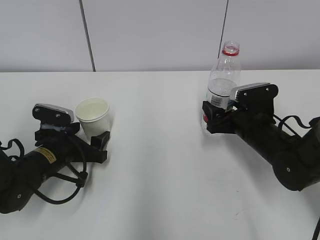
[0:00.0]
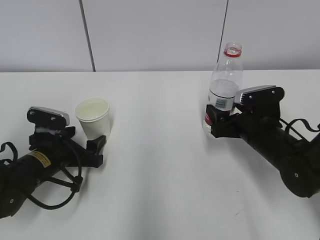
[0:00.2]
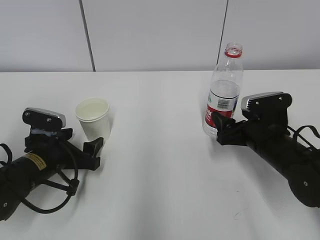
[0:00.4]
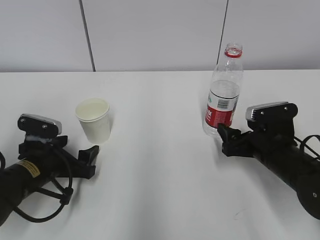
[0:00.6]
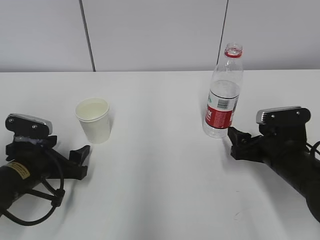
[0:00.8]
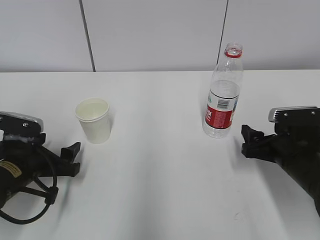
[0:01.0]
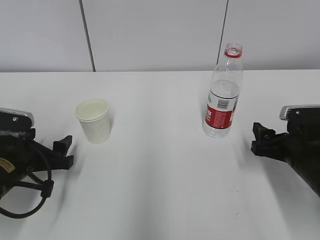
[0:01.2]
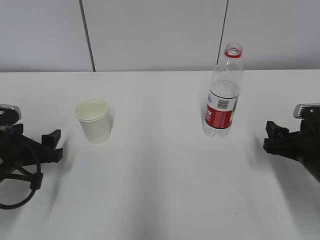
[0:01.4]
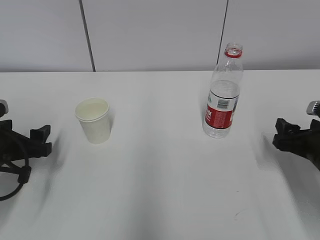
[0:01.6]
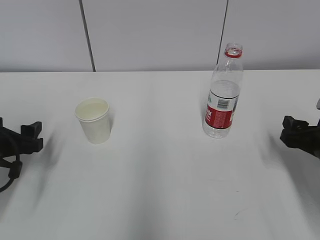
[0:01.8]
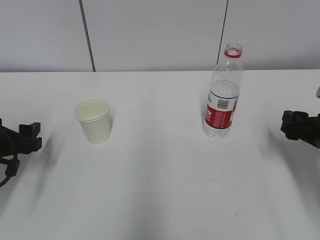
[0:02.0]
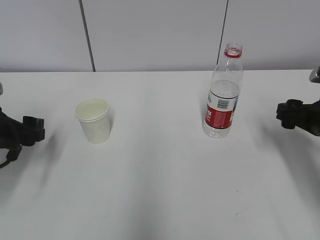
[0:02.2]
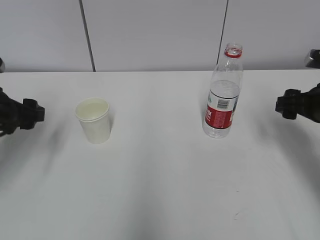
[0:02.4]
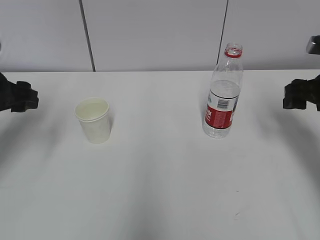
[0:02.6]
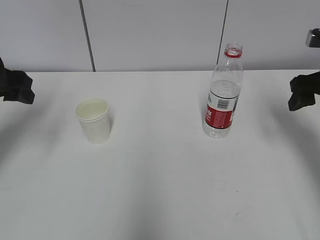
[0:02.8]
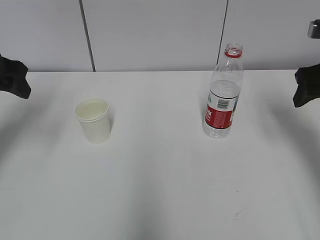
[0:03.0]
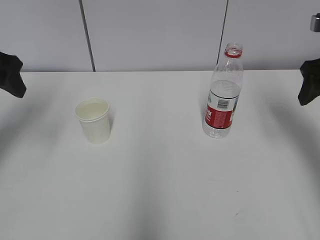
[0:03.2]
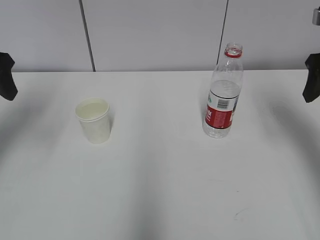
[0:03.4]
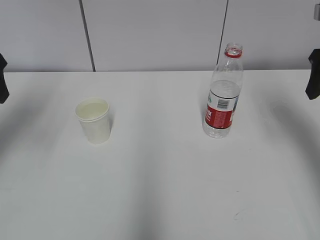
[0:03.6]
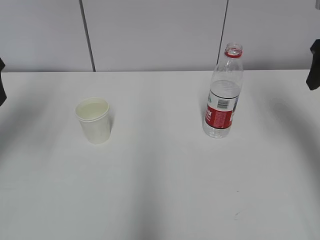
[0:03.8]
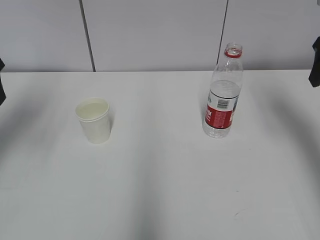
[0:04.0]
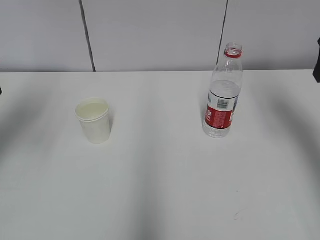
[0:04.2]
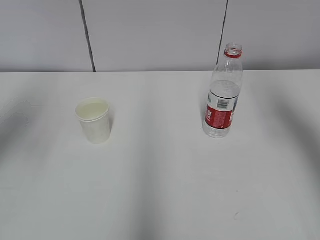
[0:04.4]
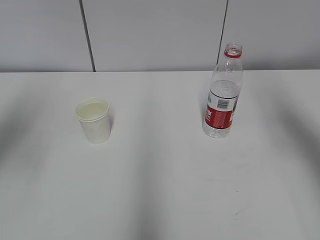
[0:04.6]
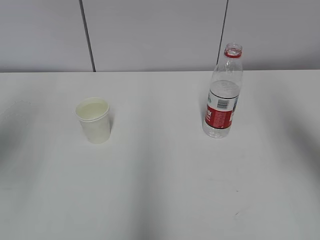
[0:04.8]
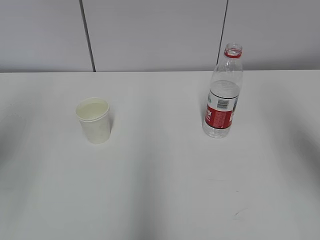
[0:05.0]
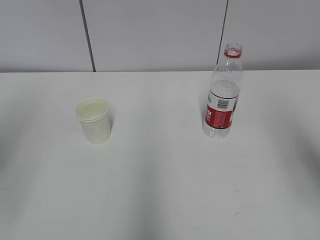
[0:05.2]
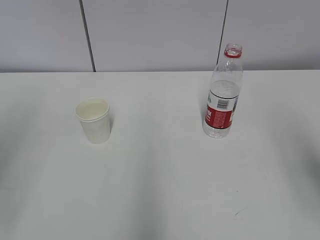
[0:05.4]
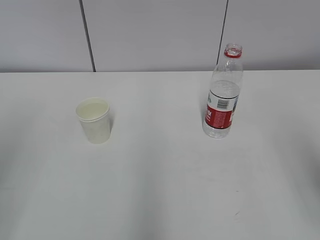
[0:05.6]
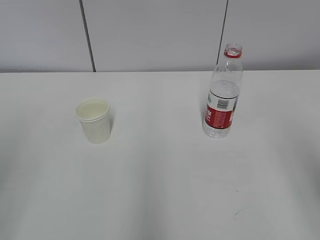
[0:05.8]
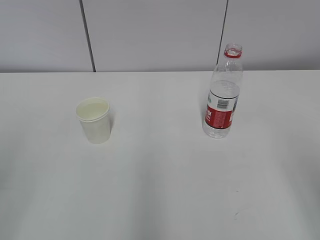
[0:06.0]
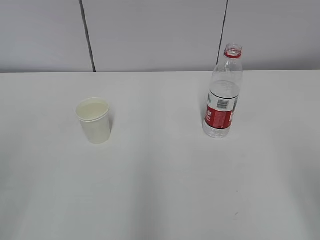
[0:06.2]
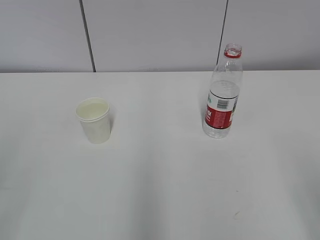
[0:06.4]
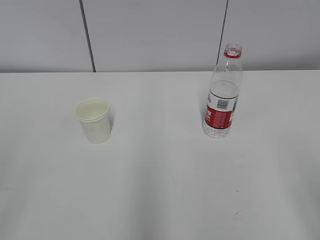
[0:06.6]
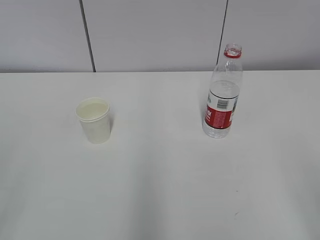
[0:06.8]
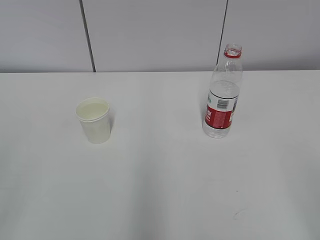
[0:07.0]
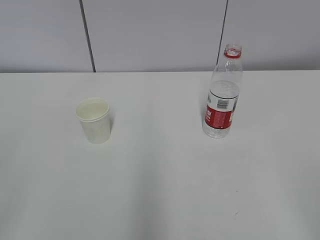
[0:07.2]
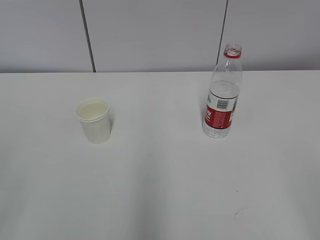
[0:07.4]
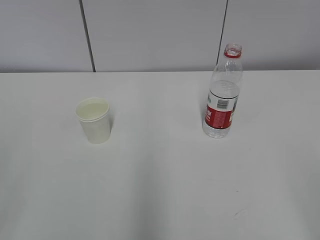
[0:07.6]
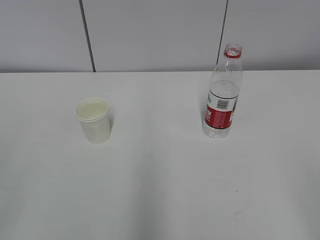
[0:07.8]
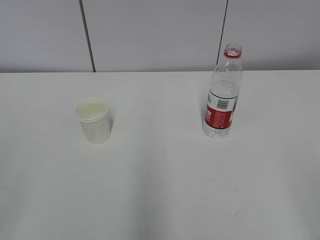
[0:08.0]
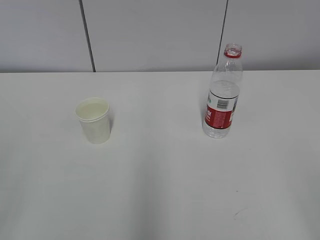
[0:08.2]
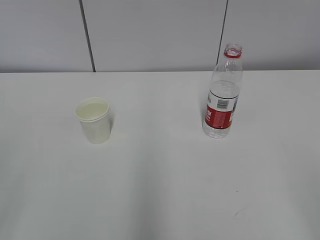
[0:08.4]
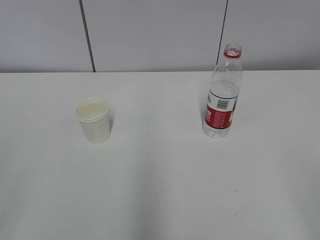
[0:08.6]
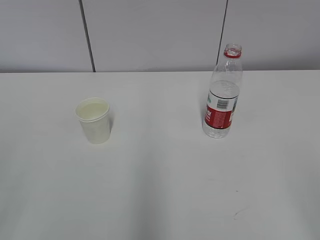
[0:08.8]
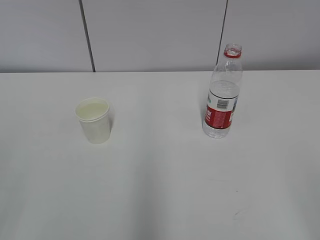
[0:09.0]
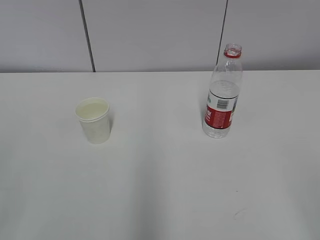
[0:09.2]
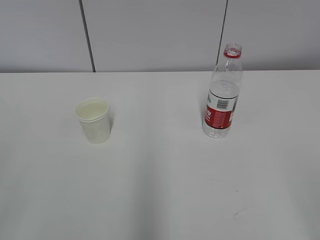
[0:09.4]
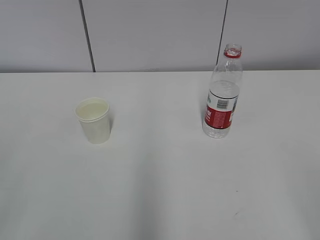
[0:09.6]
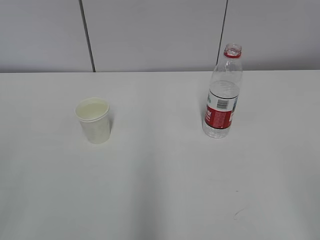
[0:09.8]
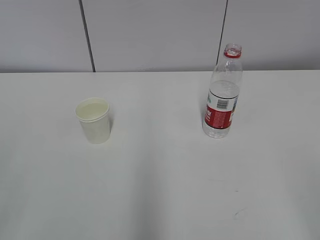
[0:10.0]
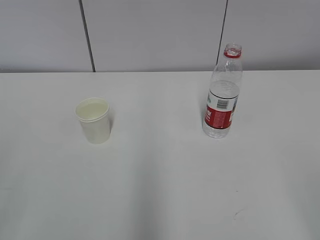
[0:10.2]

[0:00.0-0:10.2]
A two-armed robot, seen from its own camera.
0:00.0 to 0:01.4: The right gripper heads backward and to the right, covering some 10 cm. Meanwhile the left gripper travels to the left by roughly 5 cm.
0:01.4 to 0:03.0: The right gripper is displaced upward and forward by roughly 15 cm, while the left gripper goes roughly 20 cm upward.
0:03.0 to 0:04.4: The left gripper heads upward, covering roughly 5 cm; the right gripper travels upward by roughly 10 cm.
0:04.4 to 0:05.8: Both grippers move backward, about 20 cm.
0:07.2 to 0:10.2: Both grippers stay put.

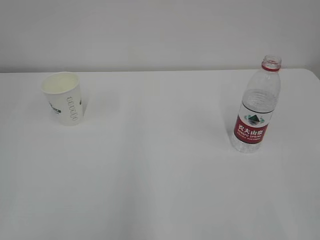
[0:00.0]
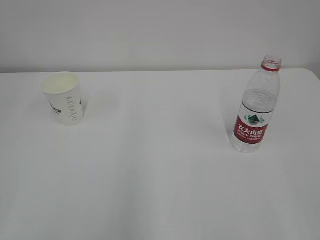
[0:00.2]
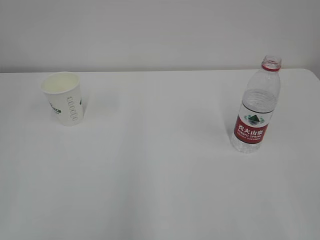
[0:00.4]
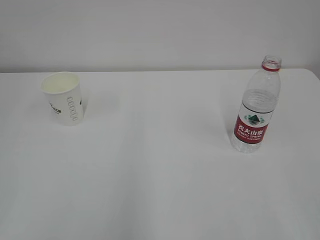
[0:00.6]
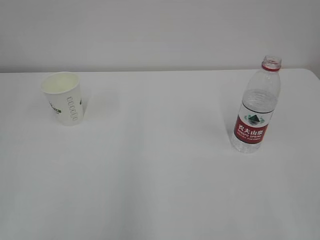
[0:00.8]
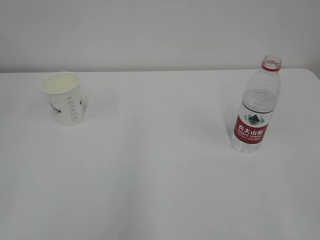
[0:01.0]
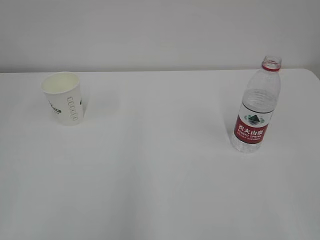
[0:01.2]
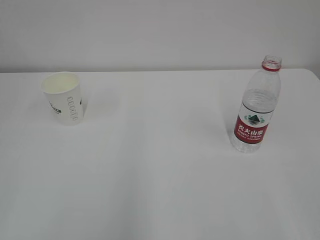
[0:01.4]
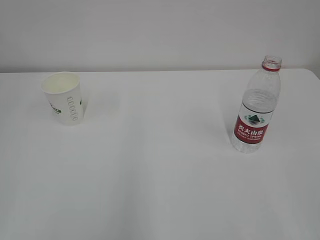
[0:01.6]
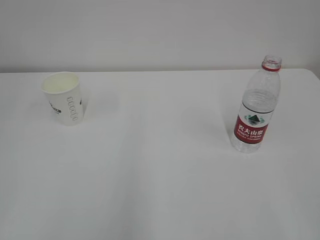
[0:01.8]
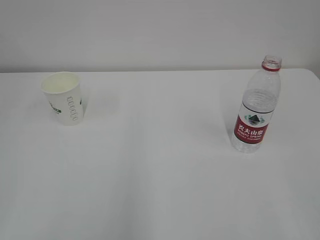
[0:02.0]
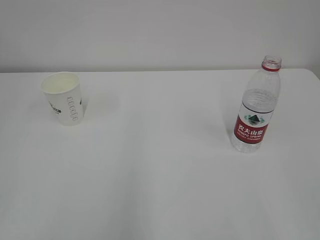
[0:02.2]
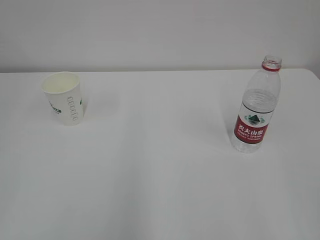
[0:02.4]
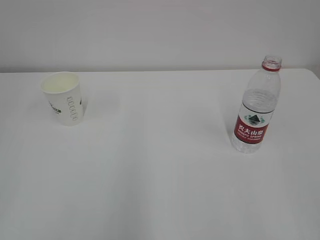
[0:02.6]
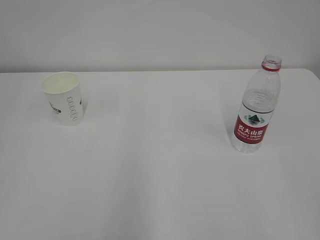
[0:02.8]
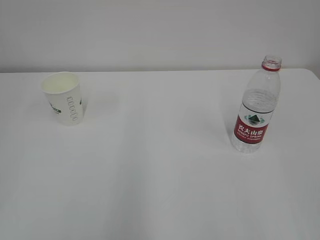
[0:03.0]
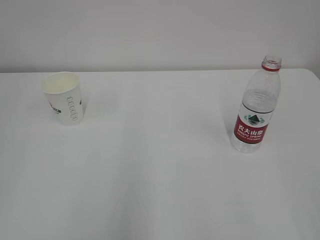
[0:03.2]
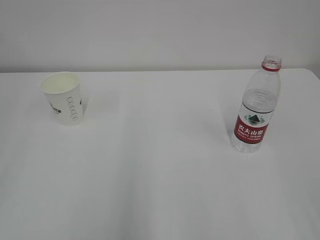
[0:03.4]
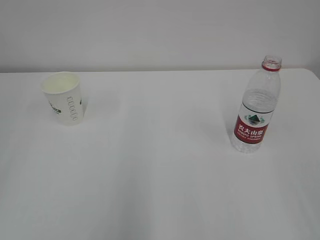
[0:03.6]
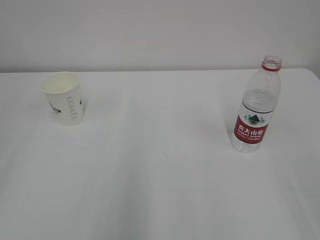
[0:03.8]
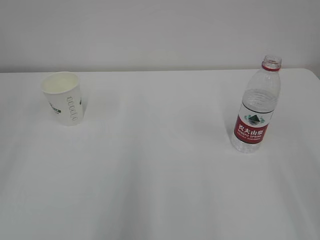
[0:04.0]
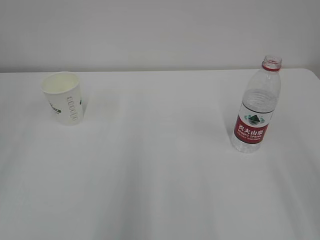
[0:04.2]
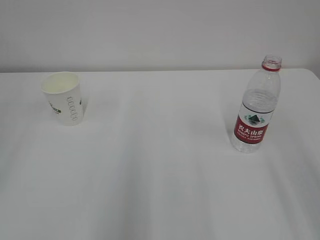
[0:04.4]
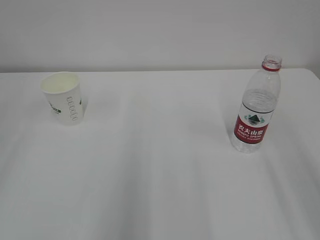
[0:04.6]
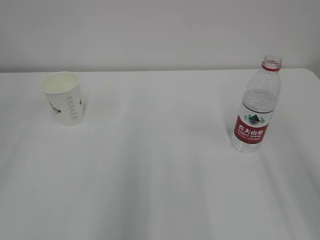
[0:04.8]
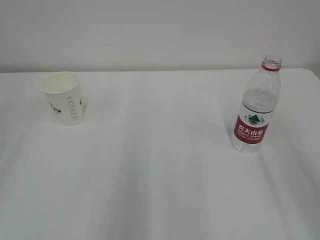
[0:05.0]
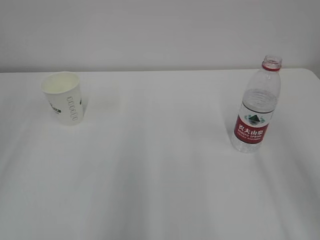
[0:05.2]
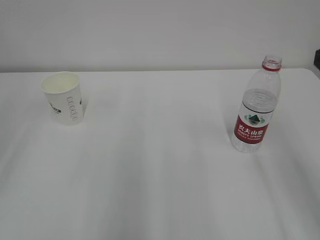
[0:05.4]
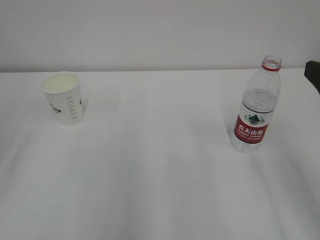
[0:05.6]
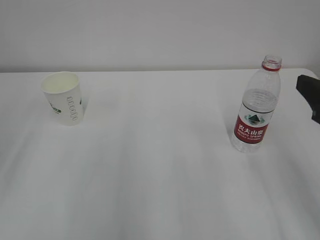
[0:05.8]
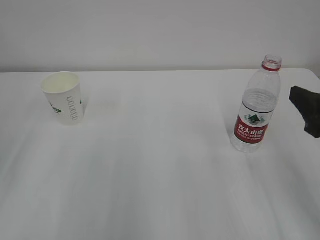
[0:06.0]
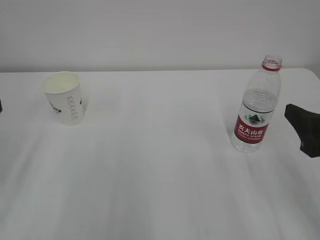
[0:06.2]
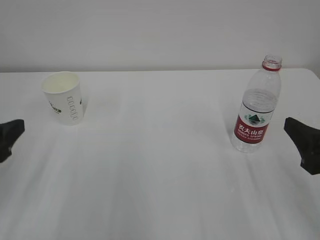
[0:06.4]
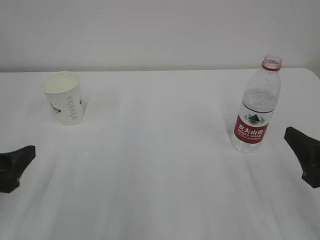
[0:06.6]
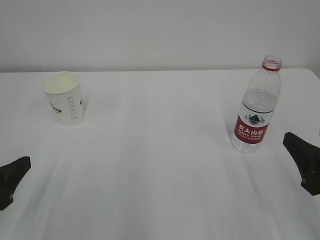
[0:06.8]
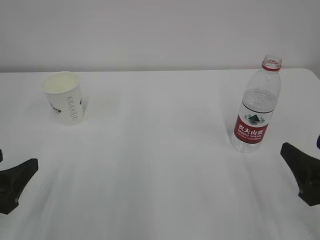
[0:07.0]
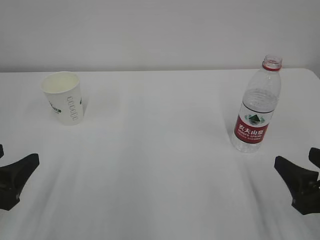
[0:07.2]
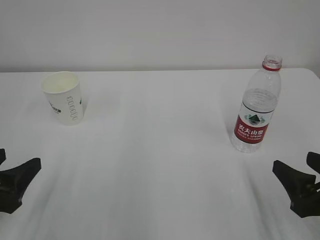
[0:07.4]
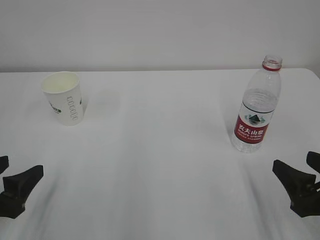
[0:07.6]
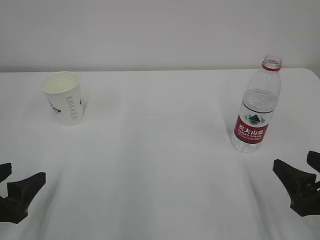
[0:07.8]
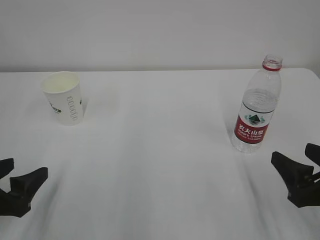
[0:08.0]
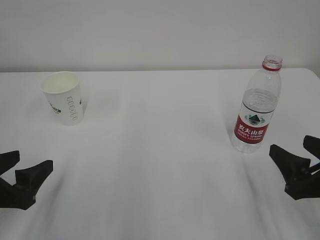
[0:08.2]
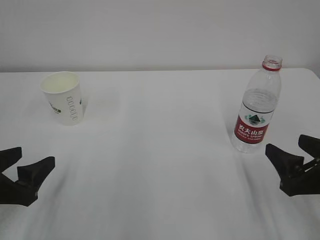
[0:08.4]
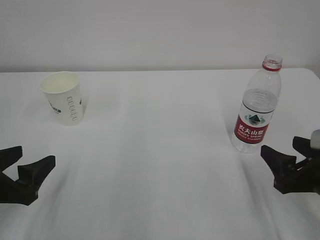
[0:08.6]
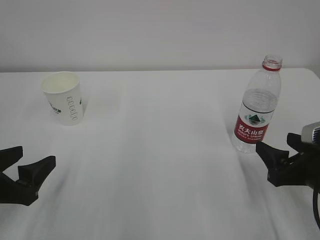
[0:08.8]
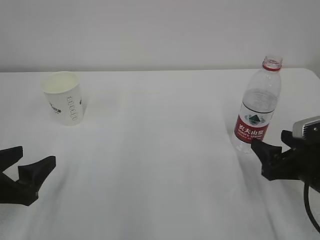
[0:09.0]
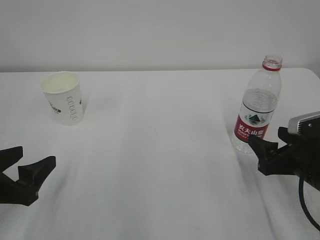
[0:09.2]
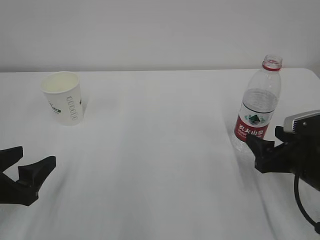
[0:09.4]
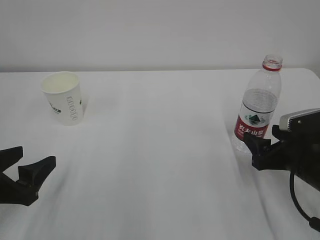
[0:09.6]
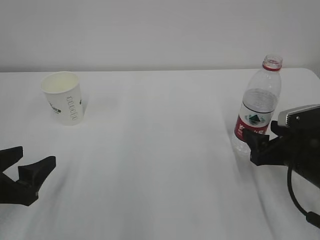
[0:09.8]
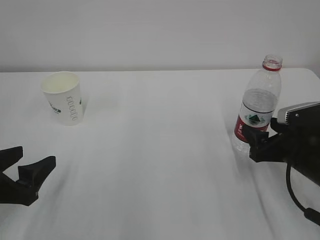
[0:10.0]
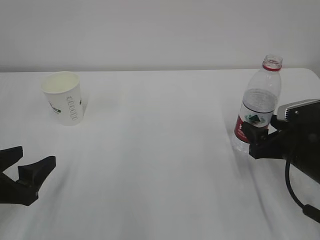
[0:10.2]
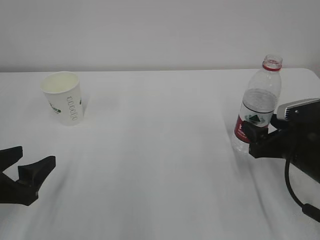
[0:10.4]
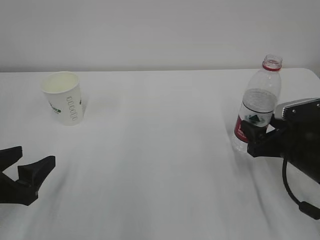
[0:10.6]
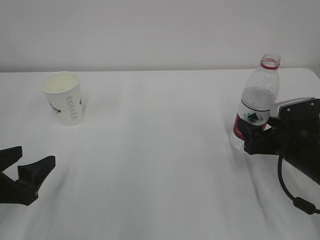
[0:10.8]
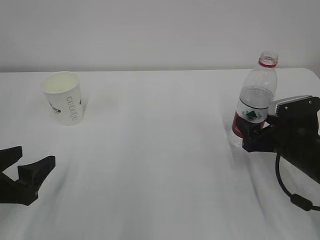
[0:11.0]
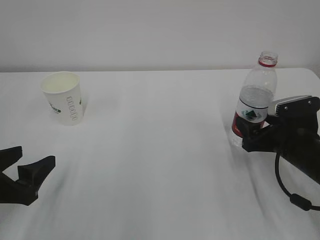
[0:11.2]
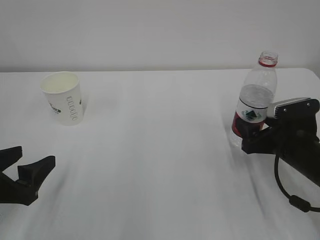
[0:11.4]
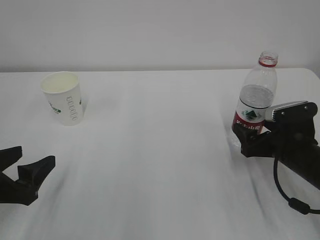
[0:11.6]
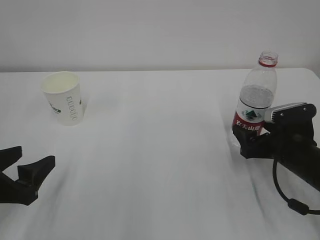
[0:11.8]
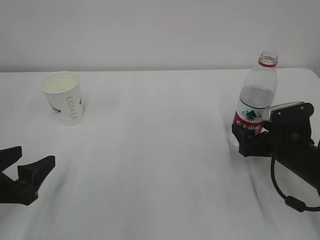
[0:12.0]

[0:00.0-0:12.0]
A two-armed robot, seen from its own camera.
0:04.4 to 0:06.0: The right gripper shifts roughly 15 cm forward and downward.
0:06.0 to 0:07.6: The grippers both shift downward by approximately 10 cm.
0:07.6 to 0:09.0: The right gripper shifts roughly 5 cm forward.
0:09.0 to 0:10.4: The grippers make only small movements.
0:10.4 to 0:12.0: The grippers move only a little.
